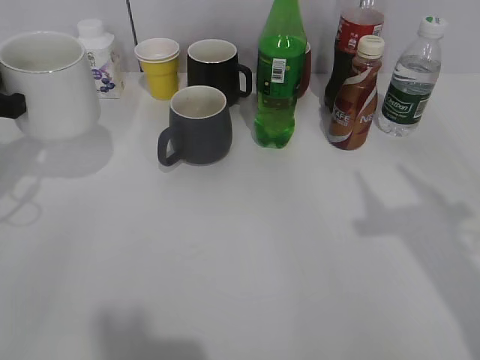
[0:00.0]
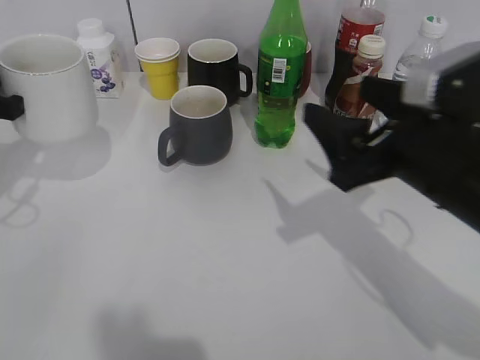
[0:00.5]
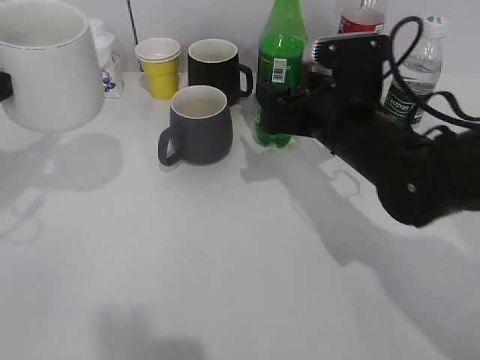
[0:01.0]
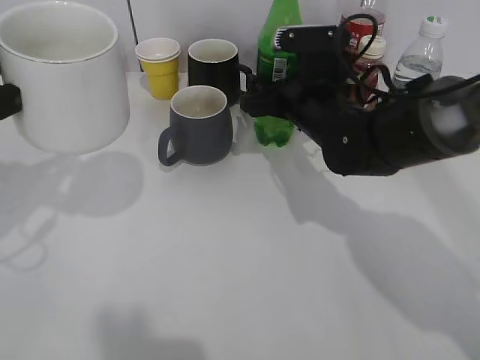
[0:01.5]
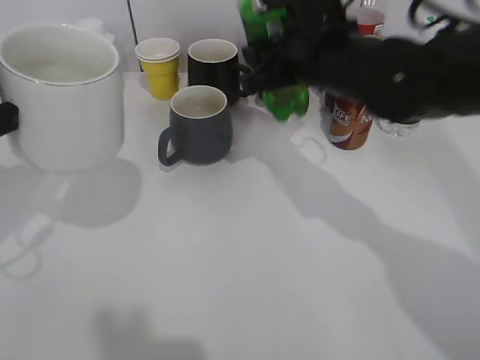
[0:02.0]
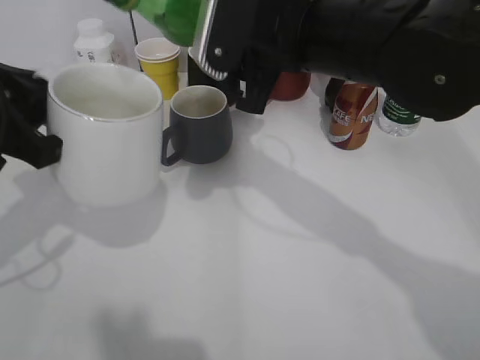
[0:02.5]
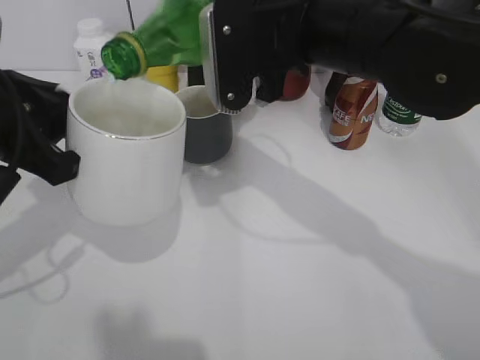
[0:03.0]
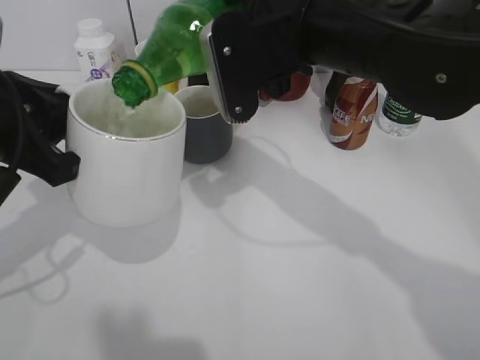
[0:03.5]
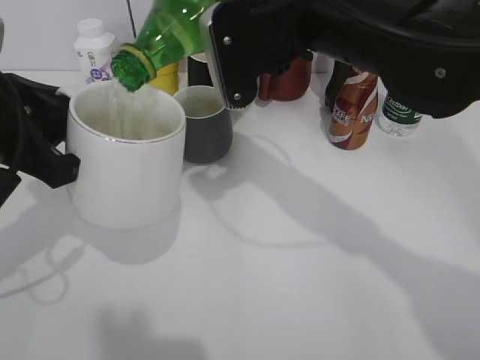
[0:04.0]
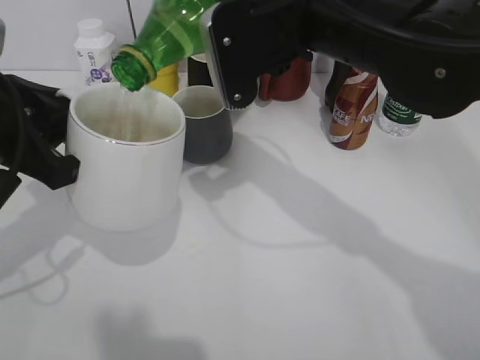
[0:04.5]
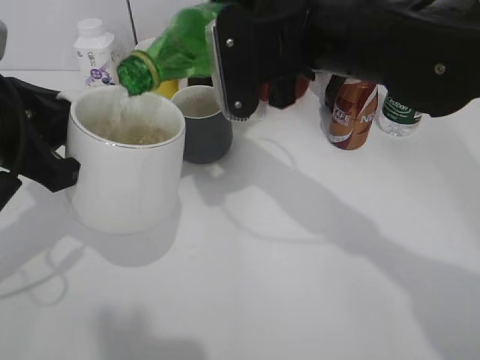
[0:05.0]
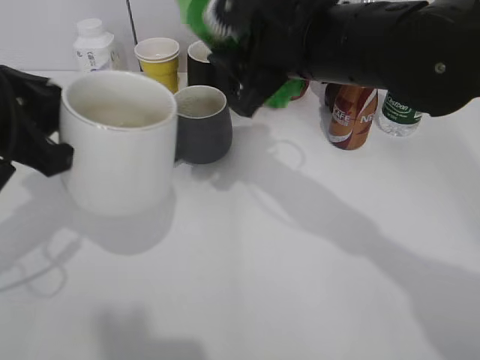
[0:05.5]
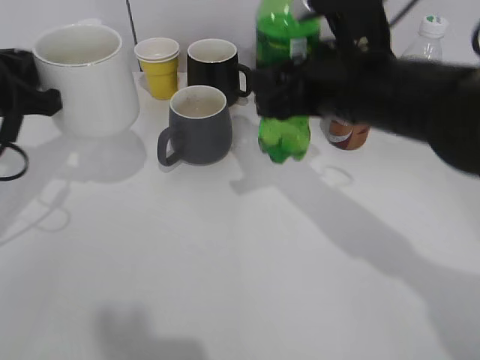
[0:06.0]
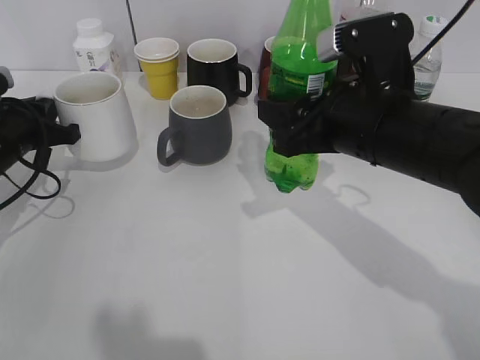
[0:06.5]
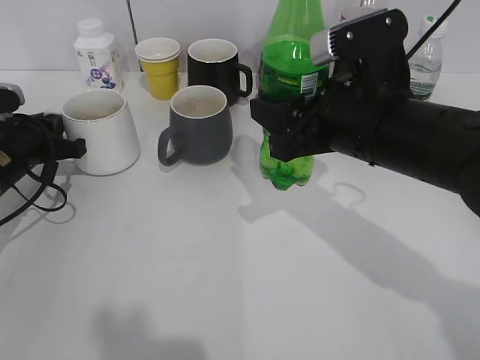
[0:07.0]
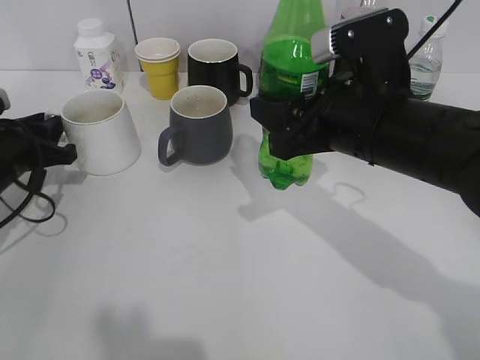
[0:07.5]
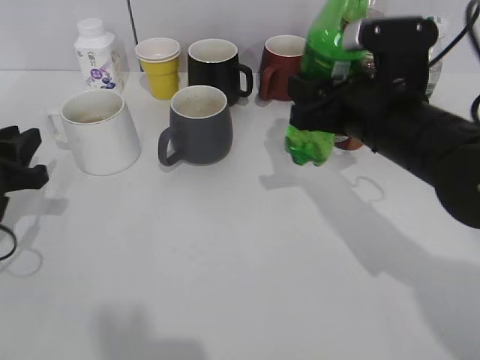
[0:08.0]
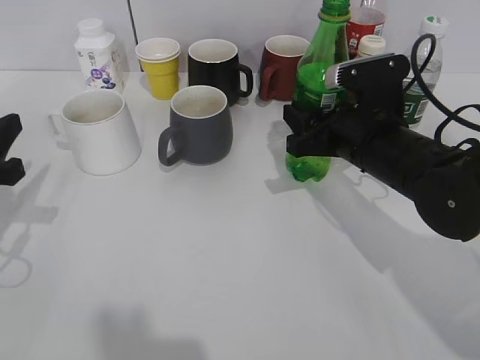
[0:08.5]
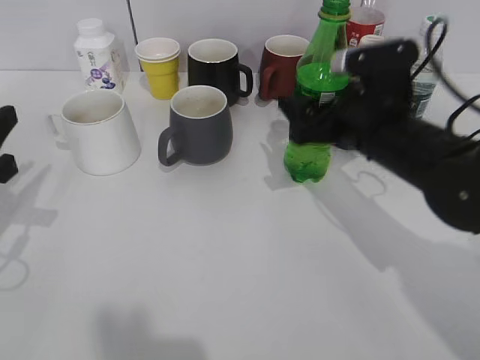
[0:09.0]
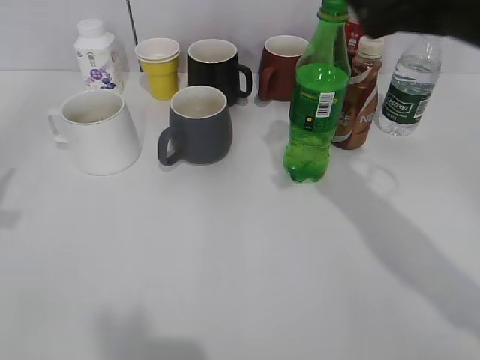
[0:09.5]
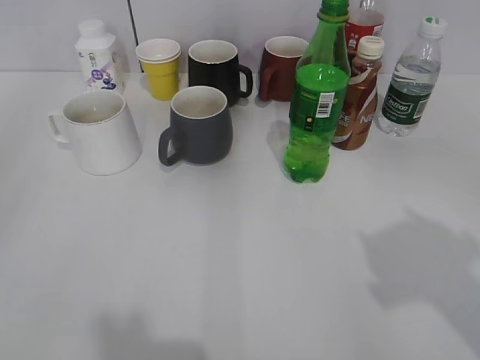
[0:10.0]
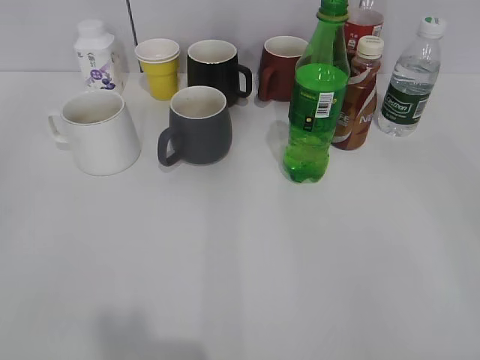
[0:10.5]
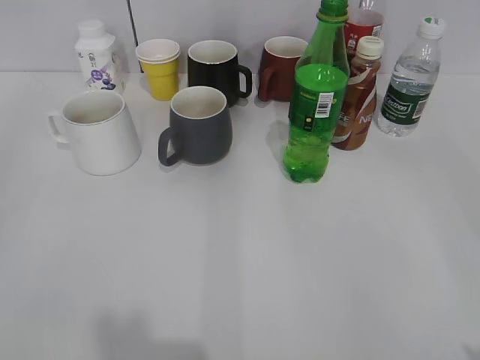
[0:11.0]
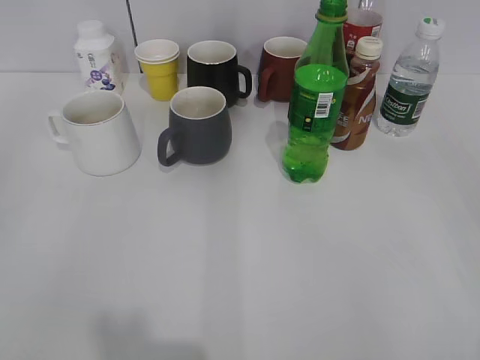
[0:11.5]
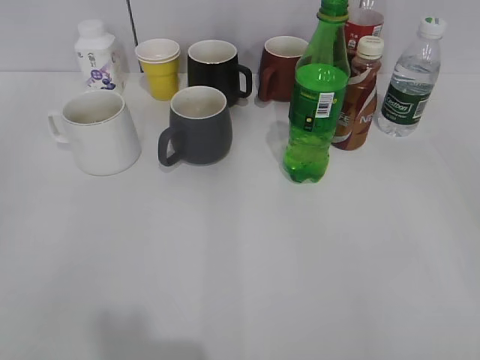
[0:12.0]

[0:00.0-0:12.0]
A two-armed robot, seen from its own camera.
Step, 0:00.5 to 0:01.5: Grasp the bottle with sprite with right gripper.
Step, 0:02.0 to 0:05.0: Pour the sprite from bottle to cup with right gripper.
Step, 0:05.5 to 0:07.0: Place the white cup on the table with left gripper.
Step, 0:07.5 to 0:08.5: Place the sprite bottle on the table with right gripper.
0:00.0 to 0:02.0: The left gripper moves backward and upward, about 10 cm; the right gripper goes roughly 30 cm forward, to the left and downward, and closes.
0:02.0 to 0:04.0: The right gripper heads upward, covering some 5 cm.
0:04.0 to 0:06.0: The right gripper travels downward by approximately 5 cm, while the left gripper goes about 10 cm forward and to the left.
0:06.0 to 0:08.0: The left gripper moves downward, about 10 cm, and opens up. The right gripper ends up approximately 5 cm from where it was.
0:08.0 to 0:10.0: The right gripper is displaced backward, upward and to the right by about 25 cm, and opens its fingers, while the left gripper moves backward and upward, some 30 cm, and opens its fingers.
0:10.0 to 0:12.0: The right gripper moves backward, downward and to the right, about 15 cm.
